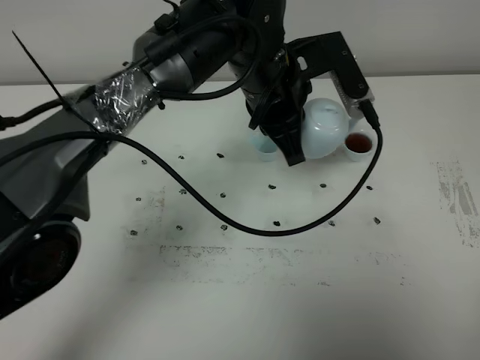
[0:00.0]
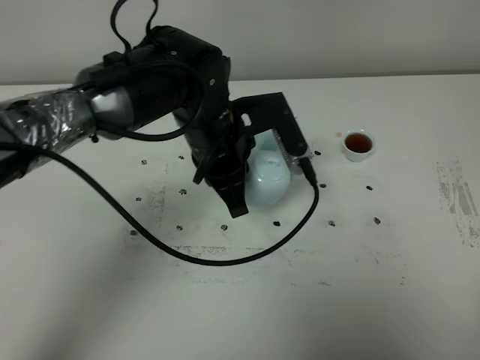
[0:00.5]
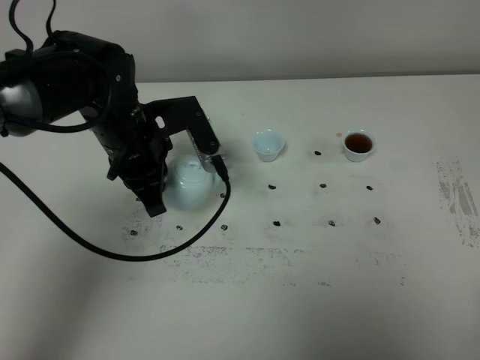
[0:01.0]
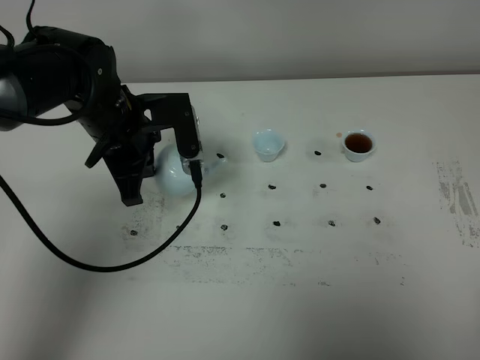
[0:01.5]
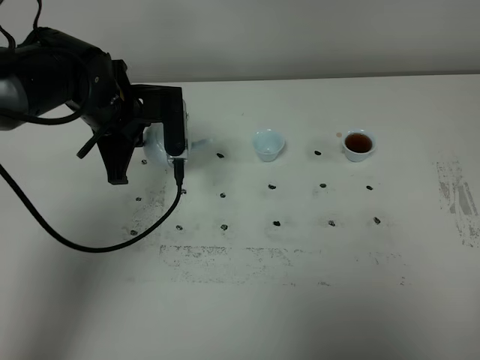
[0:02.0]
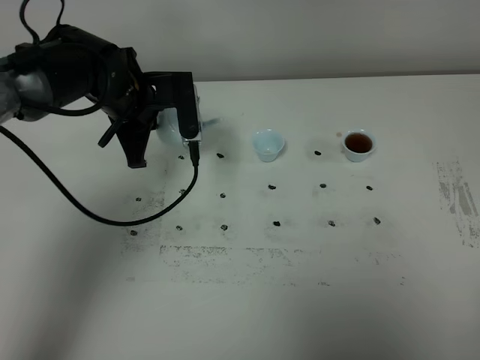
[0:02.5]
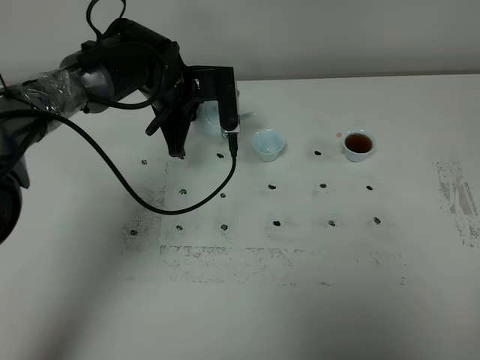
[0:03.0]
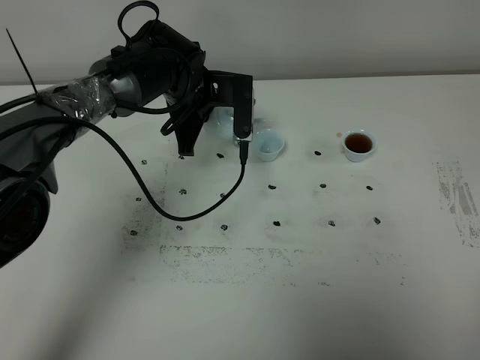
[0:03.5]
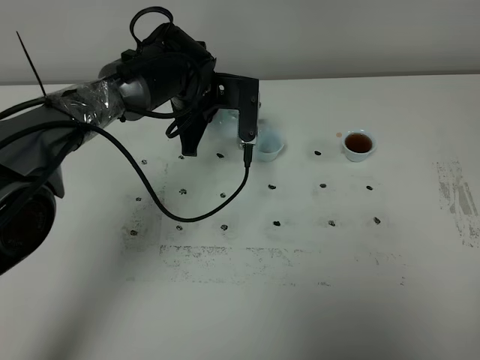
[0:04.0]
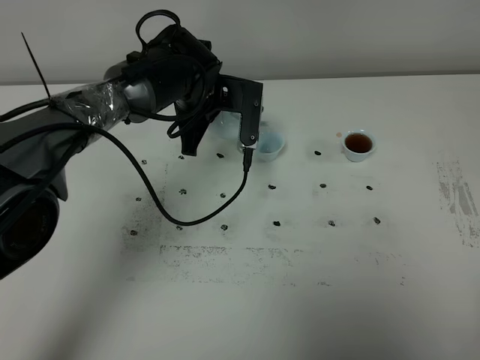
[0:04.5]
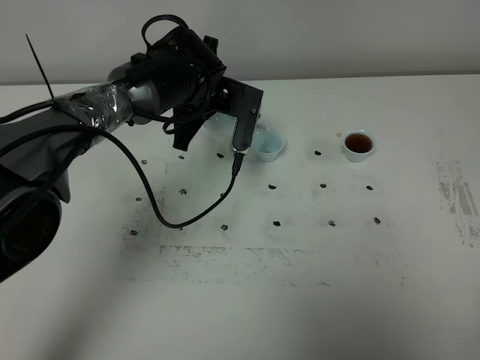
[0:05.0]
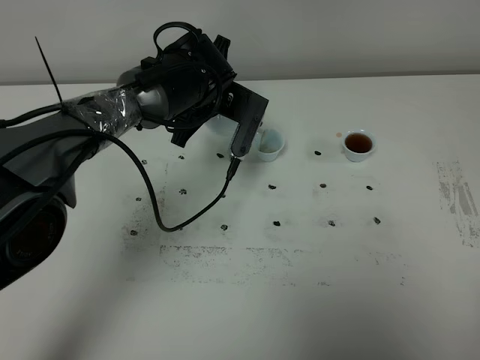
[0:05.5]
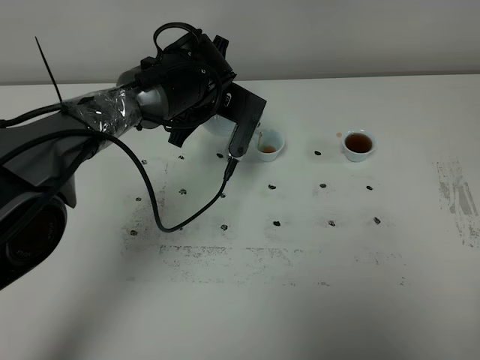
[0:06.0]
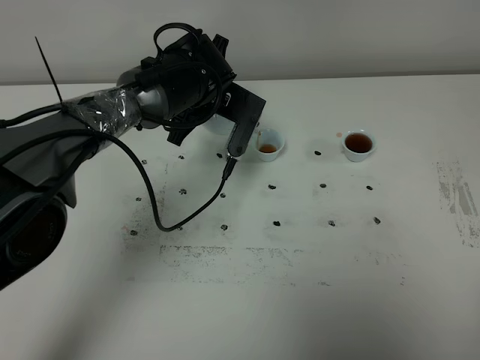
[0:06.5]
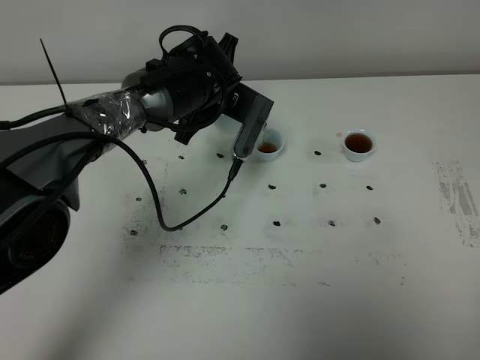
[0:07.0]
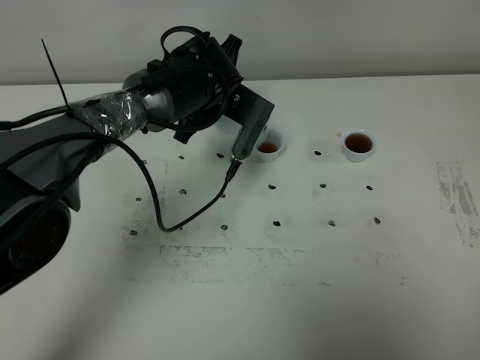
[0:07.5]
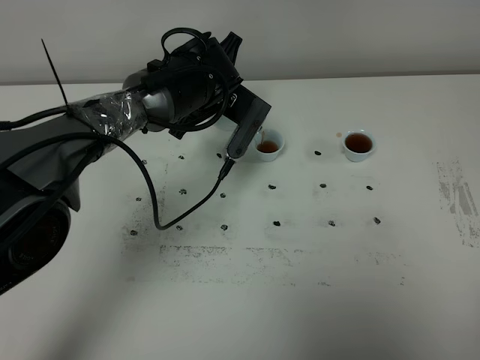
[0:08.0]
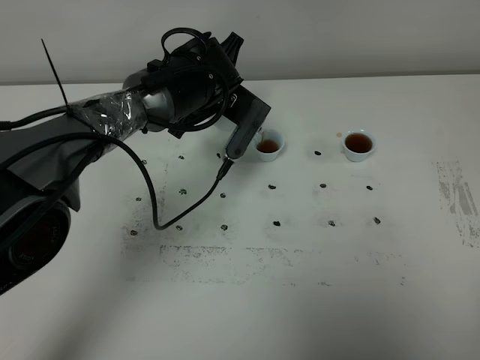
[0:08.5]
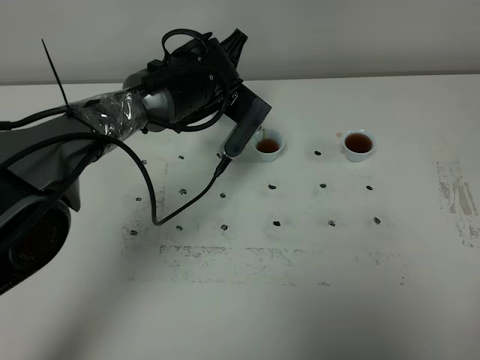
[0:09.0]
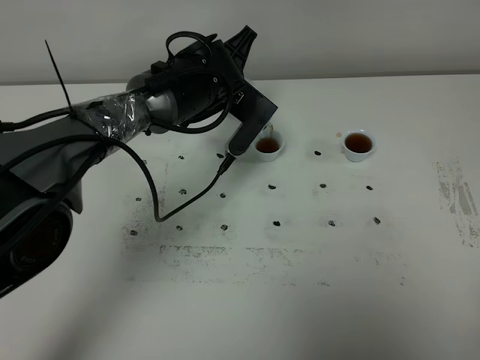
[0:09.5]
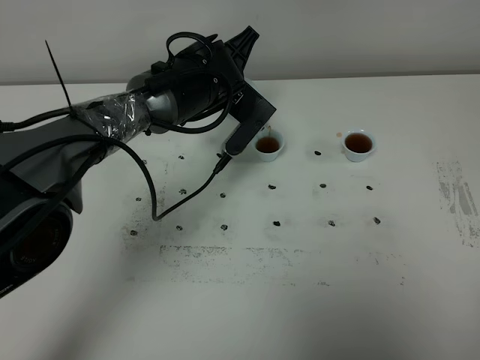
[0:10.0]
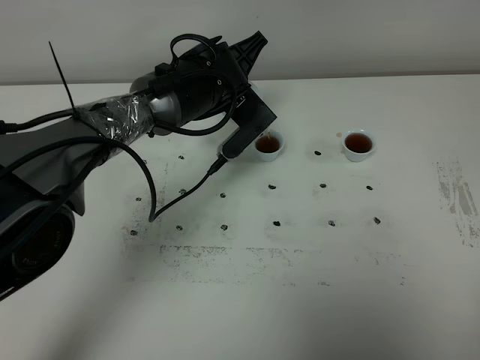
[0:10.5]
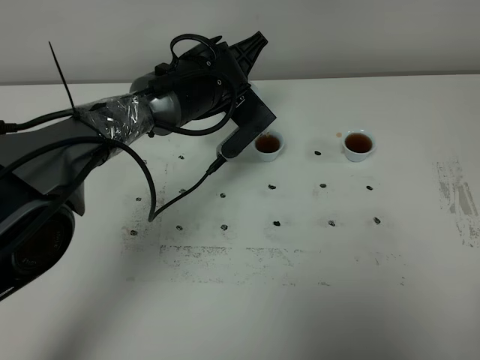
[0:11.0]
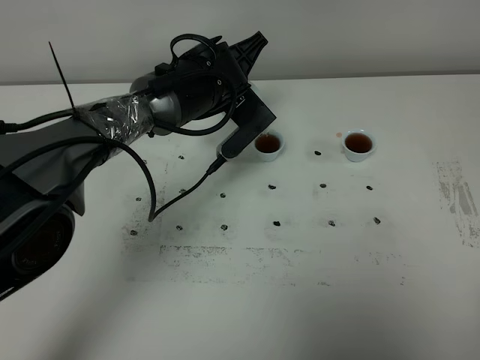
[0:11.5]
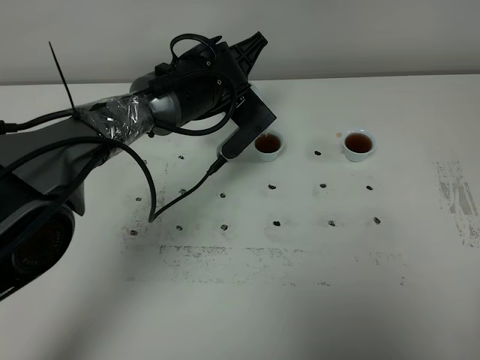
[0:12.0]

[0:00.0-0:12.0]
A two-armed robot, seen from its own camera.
Task of the whole recording: grasp the blue porcelain teapot and pour the tea into the two blue porcelain teacups one by one, put the blue porcelain teapot back in its original place.
0:00.0 to 0:02.0: The left gripper is displaced to the left by roughly 20 cm.
0:02.0 to 0:04.0: The left gripper goes some 10 cm to the right and forward.
0:06.0 to 0:08.0: The grippers make only small movements.
0:08.0 to 0:12.0: There are only small adjustments of the grippers.

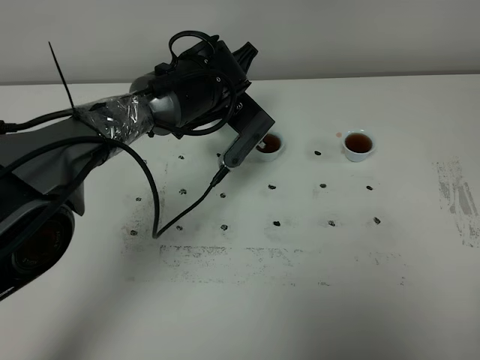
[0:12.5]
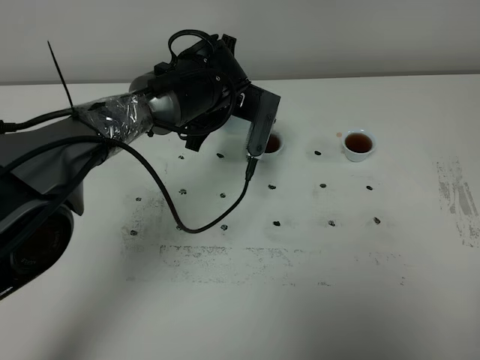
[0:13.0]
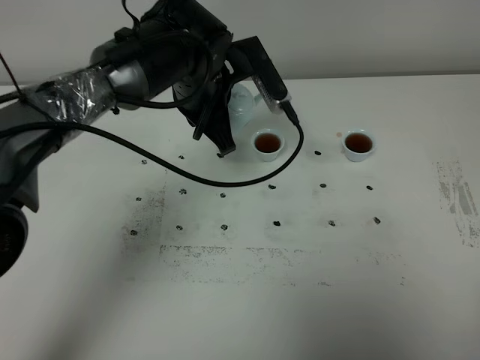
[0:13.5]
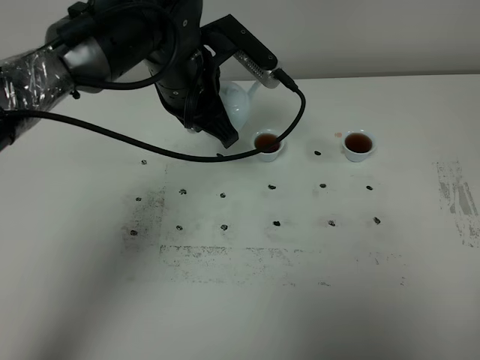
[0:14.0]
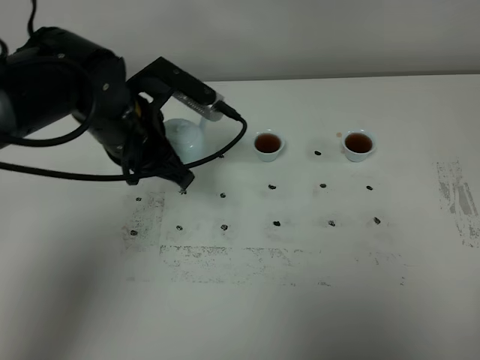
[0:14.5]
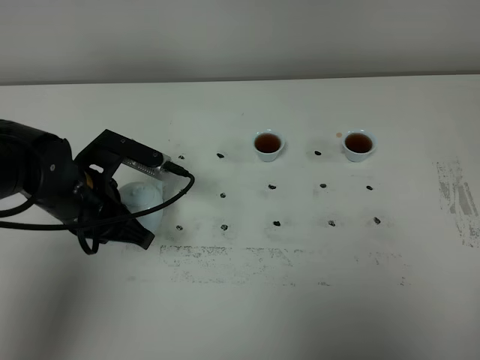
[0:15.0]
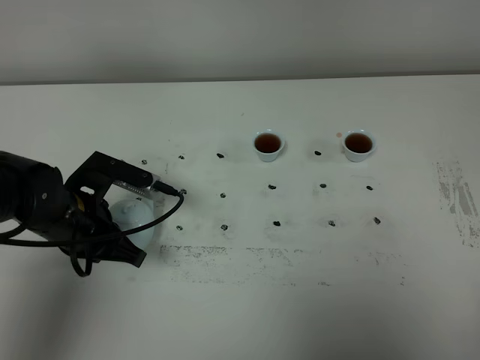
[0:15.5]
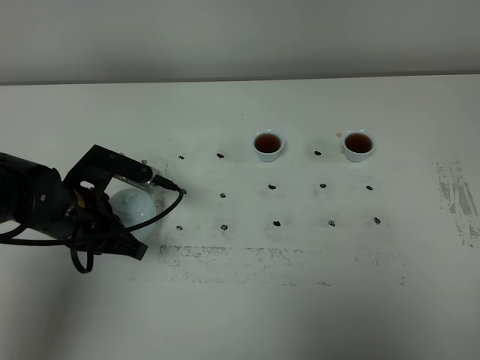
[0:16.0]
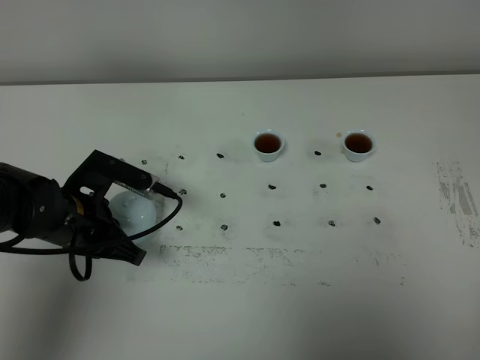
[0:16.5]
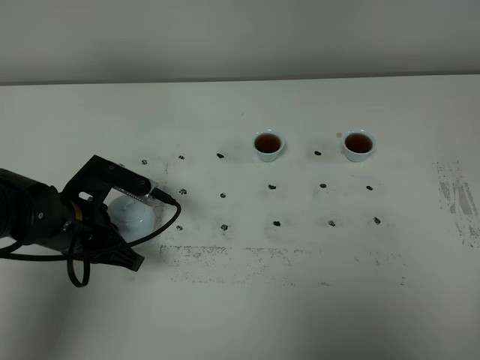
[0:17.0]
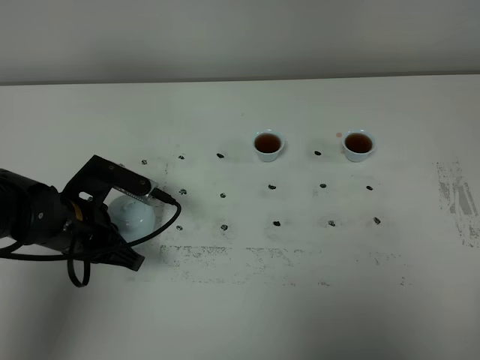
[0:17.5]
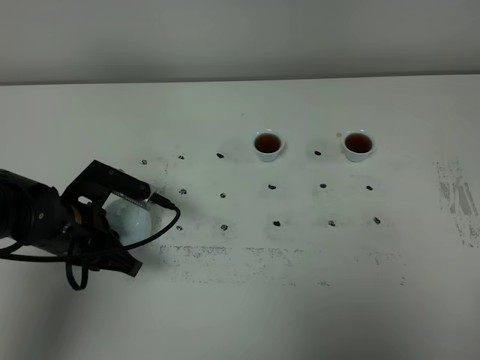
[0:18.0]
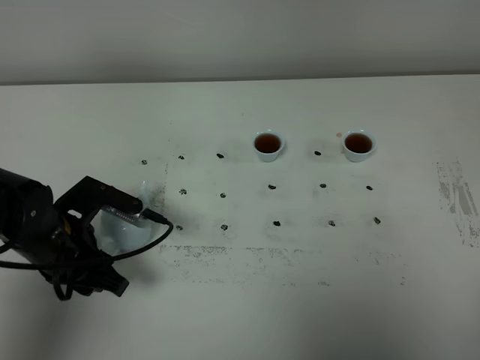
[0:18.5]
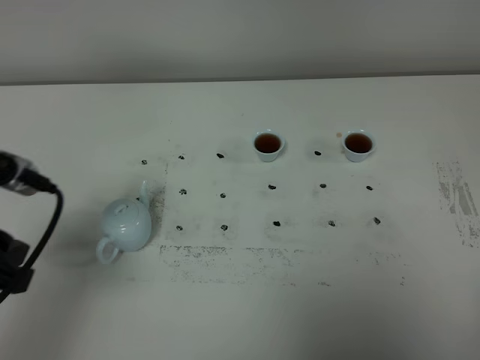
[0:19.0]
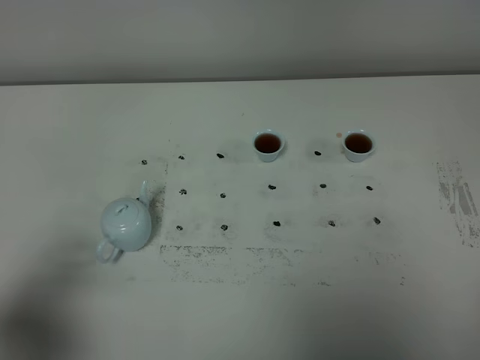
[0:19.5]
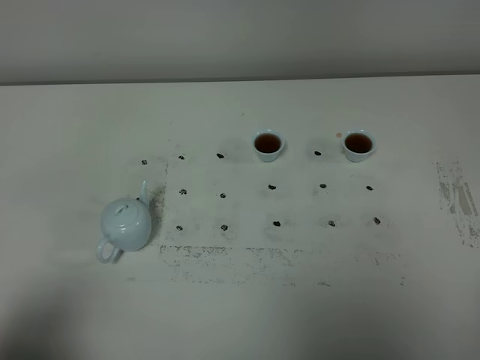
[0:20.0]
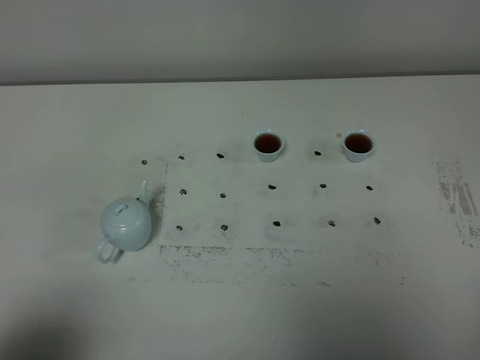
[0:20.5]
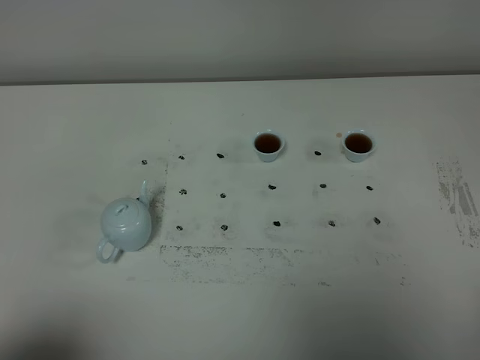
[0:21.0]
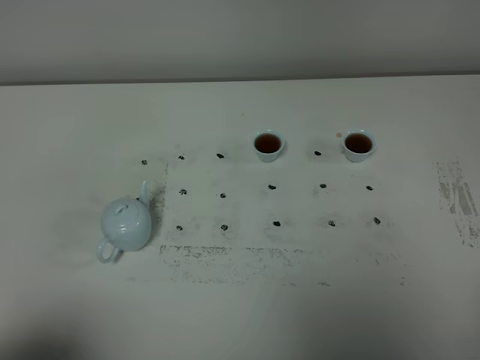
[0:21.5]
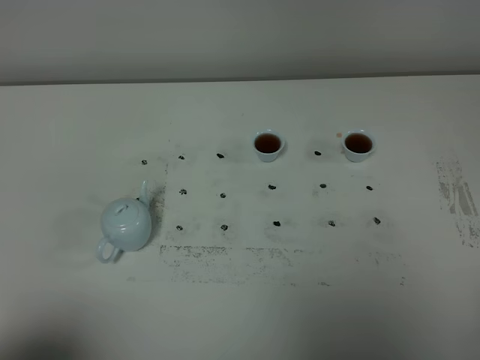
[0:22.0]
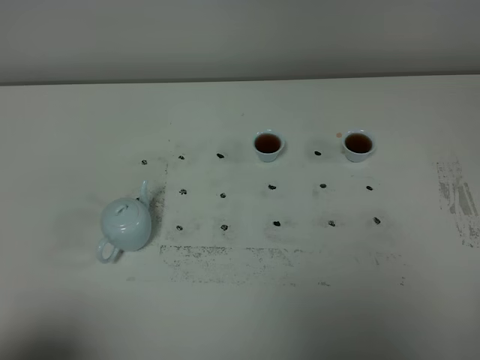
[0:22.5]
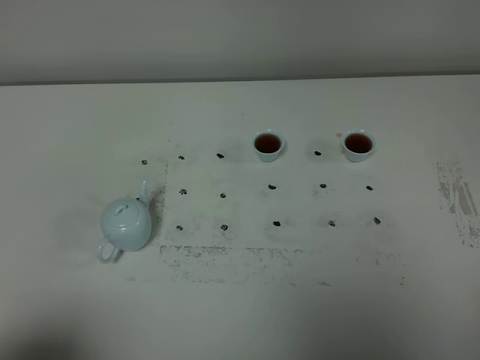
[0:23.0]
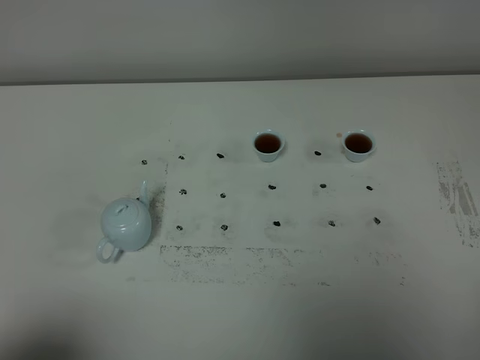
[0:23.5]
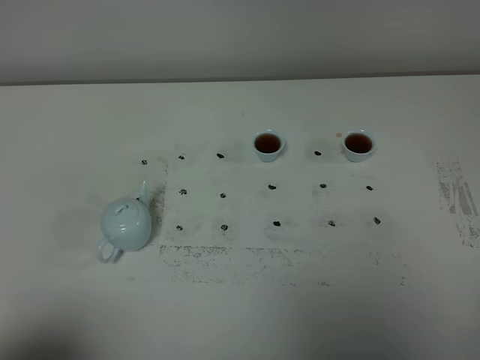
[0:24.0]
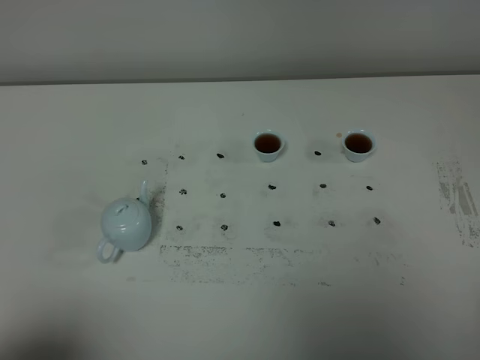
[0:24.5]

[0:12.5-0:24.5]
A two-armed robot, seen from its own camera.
Task of the whole recording: grasp the blue porcelain teapot and pour the tea into the two blue porcelain teacups one by one, put the blue porcelain teapot back in its original place.
0:12.5 to 0:14.5: The left gripper shifts approximately 15 cm backward and to the left.
0:14.5 to 0:16.5: The left gripper goes about 15 cm downward, to the left and backward.
0:16.5 to 0:18.5: The left gripper opens its fingers.
0:18.5 to 0:20.5: The left gripper travels backward and upward by approximately 30 cm.
0:22.5 to 0:24.5: Both grippers stay about where they are.

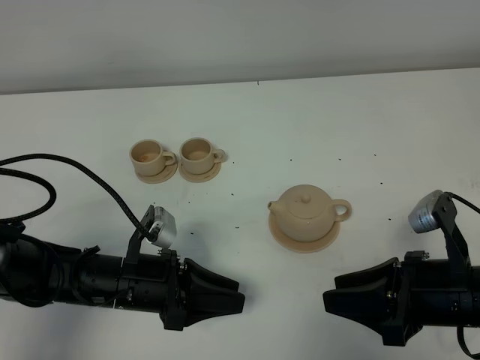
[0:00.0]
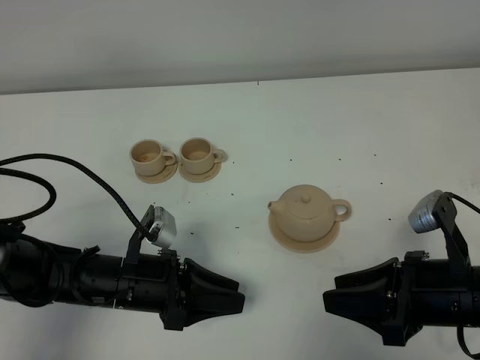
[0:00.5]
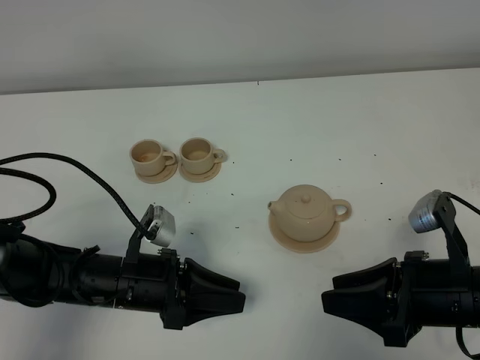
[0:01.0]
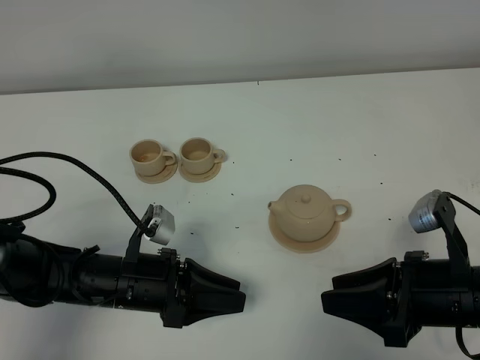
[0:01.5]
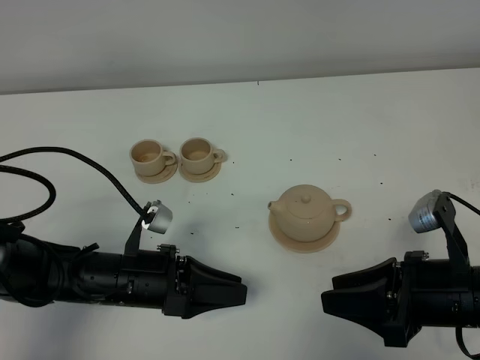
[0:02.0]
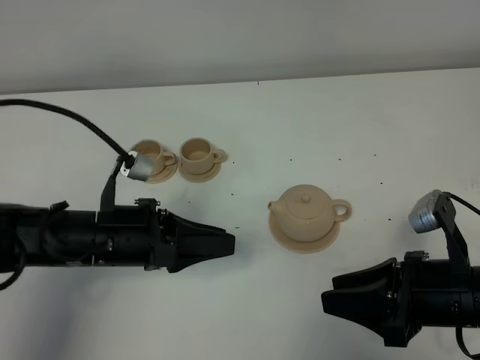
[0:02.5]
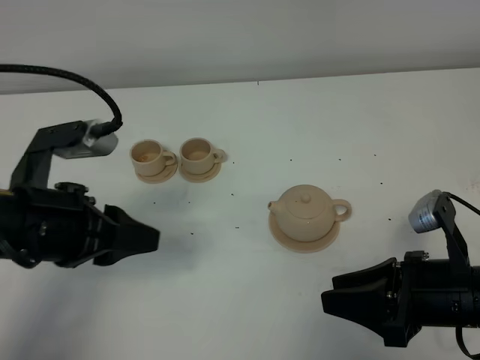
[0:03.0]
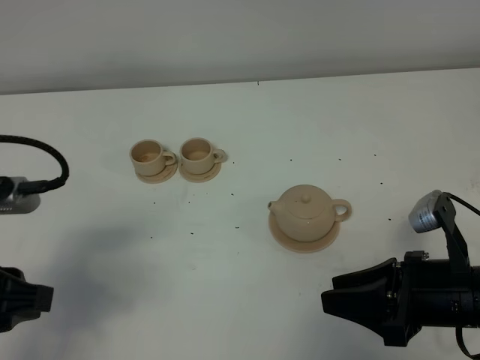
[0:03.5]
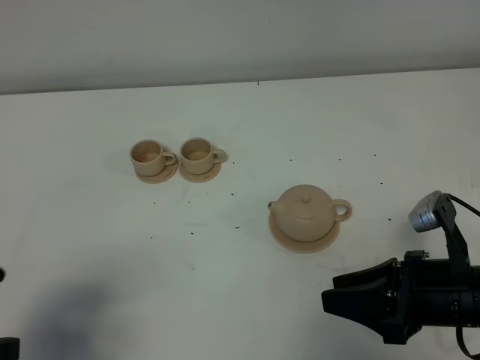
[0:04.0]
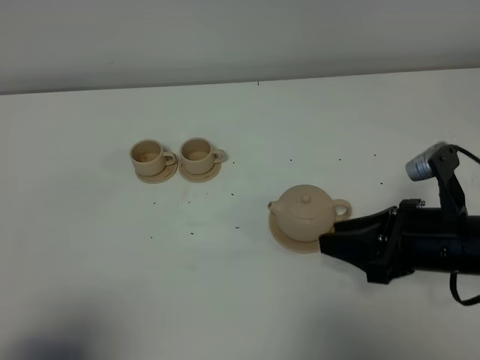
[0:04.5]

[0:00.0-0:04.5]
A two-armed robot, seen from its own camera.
Task of the whole recording: grasp the brown teapot and pour the tea into the two brown teacups one by one, put the brown teapot back in its original place.
0:00.0 to 0:02.0: The grippers move only a little.
0:02.0 to 0:04.5: The right gripper ends up approximately 5 cm from where it was; the left gripper goes roughly 30 cm backward, upward and to the left.
